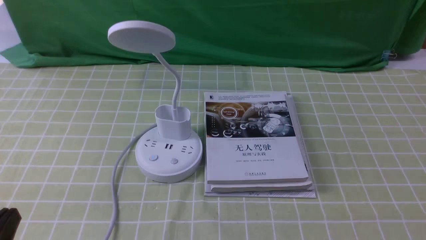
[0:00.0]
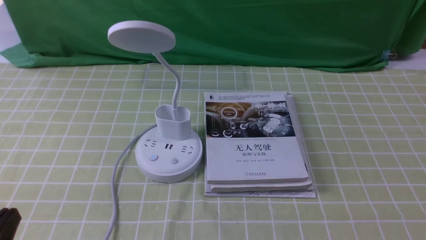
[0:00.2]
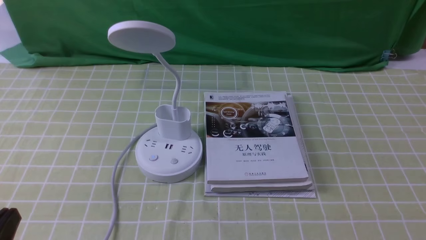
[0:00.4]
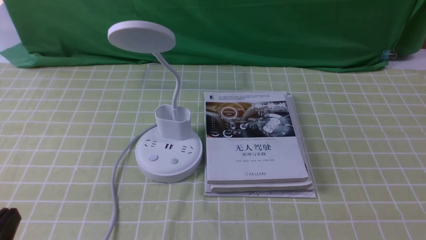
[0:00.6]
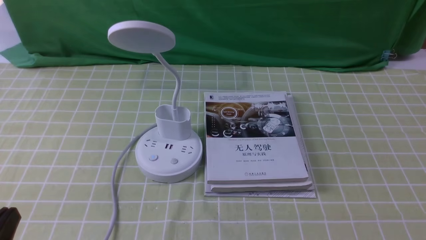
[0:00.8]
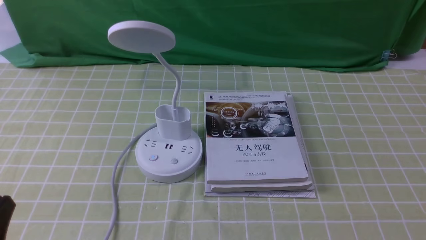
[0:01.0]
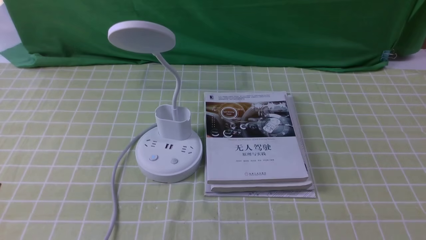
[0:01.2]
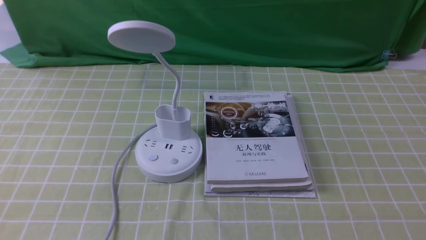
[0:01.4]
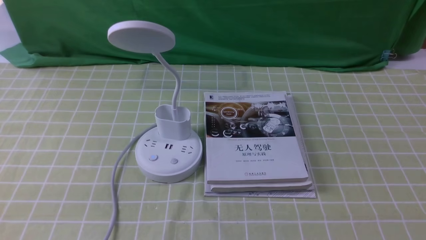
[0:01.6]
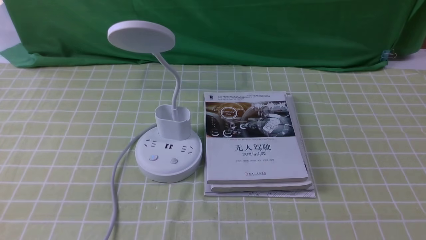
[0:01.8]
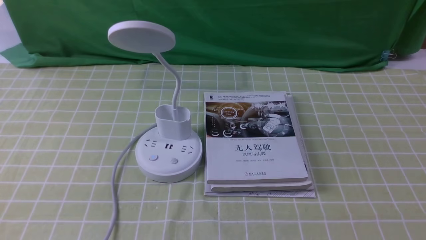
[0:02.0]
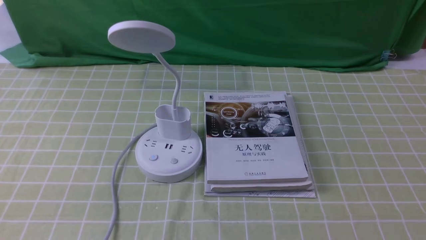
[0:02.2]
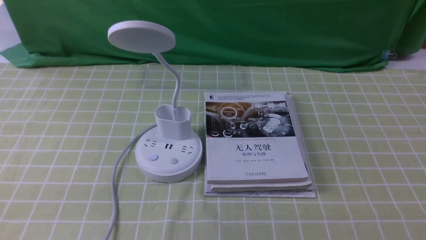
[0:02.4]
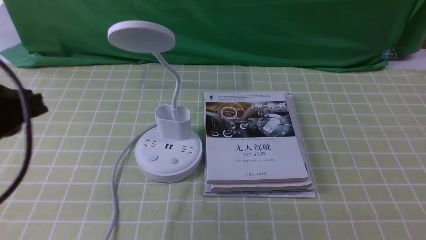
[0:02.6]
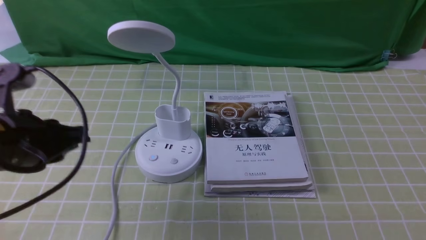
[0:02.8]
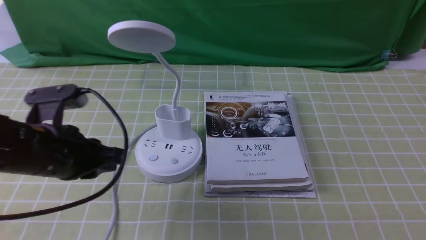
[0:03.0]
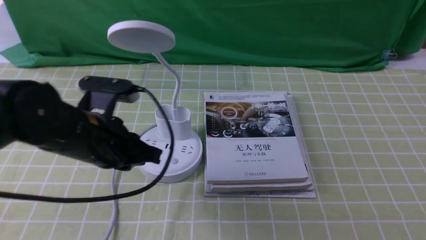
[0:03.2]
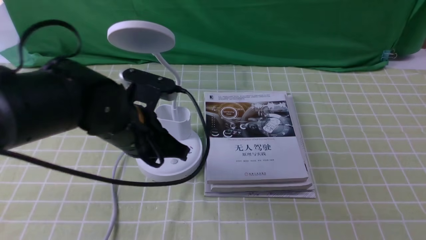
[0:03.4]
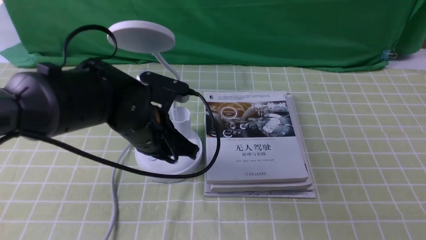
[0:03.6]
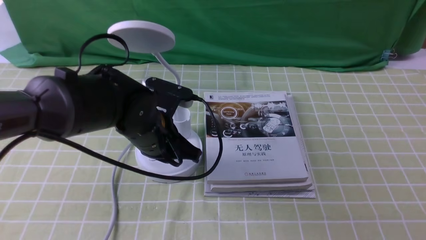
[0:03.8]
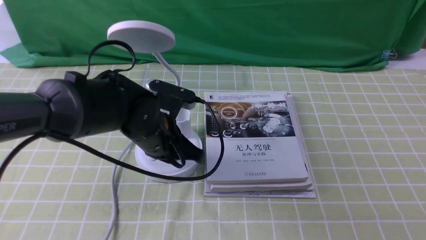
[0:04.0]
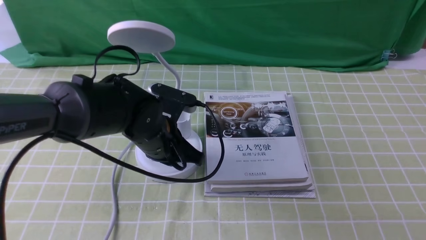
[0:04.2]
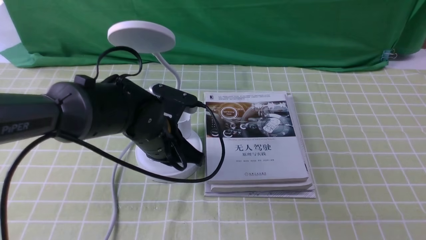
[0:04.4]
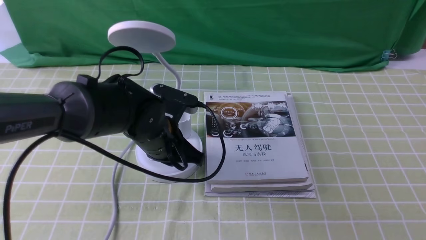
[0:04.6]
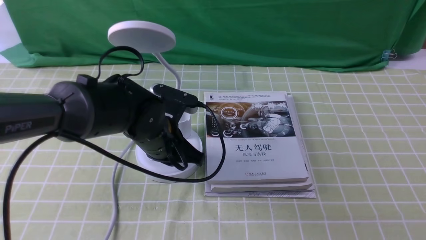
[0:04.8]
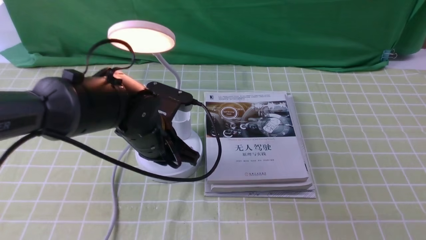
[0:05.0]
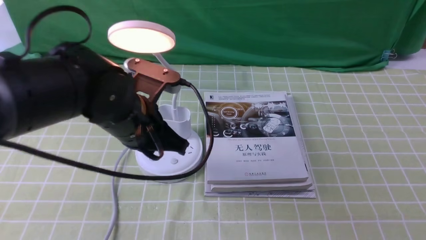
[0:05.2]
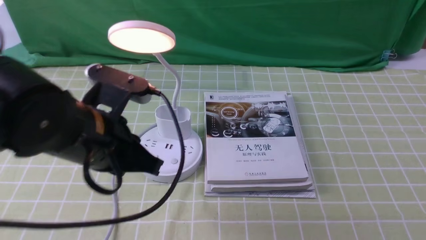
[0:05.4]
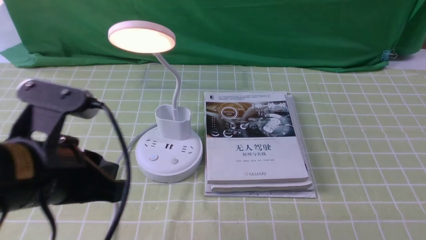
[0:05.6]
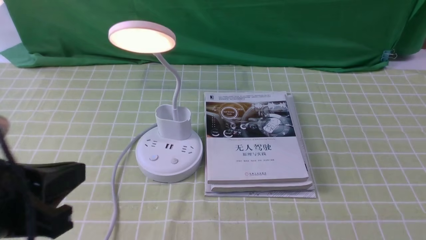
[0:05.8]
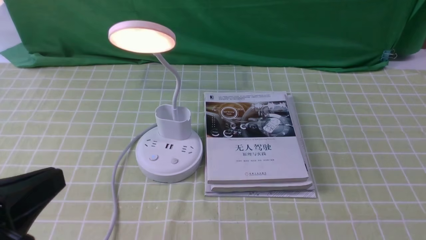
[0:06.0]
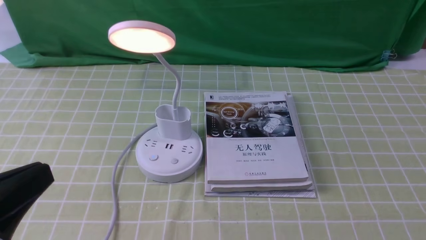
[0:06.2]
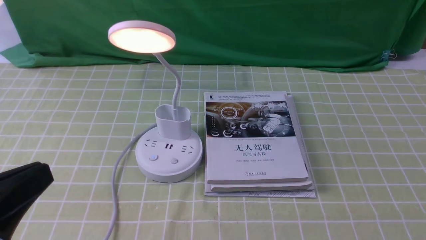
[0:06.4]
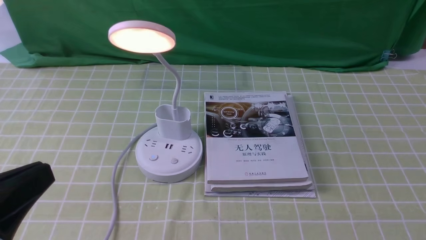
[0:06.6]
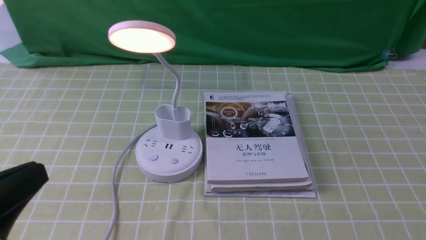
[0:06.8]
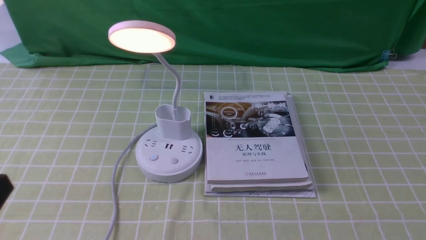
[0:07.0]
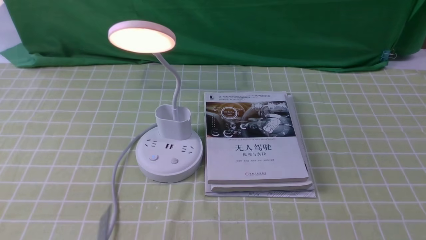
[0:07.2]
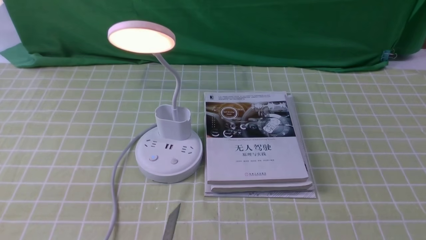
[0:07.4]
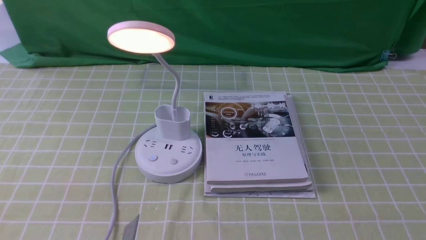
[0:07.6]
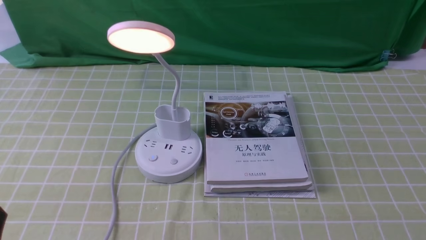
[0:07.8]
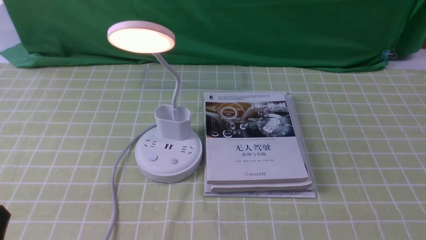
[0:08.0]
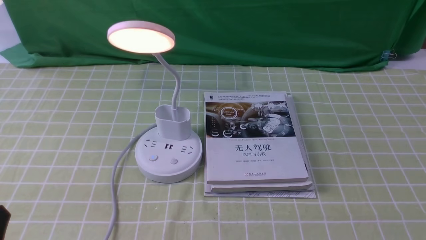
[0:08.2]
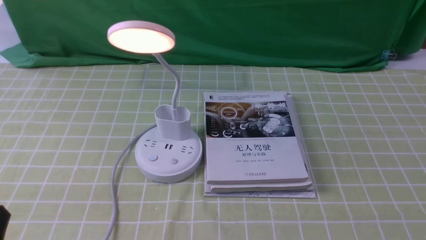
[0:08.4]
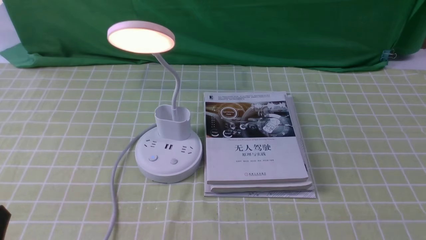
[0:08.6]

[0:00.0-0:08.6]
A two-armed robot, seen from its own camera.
Step, 0:00.0 to 0:05.2: use the left arm to press the button switch on the lamp holder.
0:01.4 to 0:02.8: The left gripper heads forward and upward, covering approximately 15 cm.
0:02.8 to 0:04.4: The left gripper travels to the right, forward and downward by about 20 cm.
0:04.4 to 0:05.8: The left gripper goes roughly 25 cm backward, upward and to the left.
0:05.8 to 0:07.2: The left gripper shifts some 10 cm backward, to the left and downward.
0:07.2 to 0:08.6: The left gripper moves downward, approximately 5 cm.

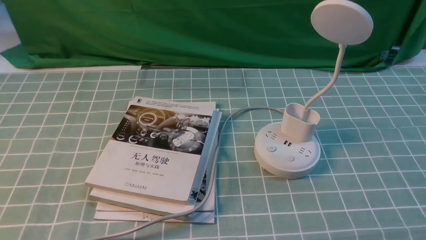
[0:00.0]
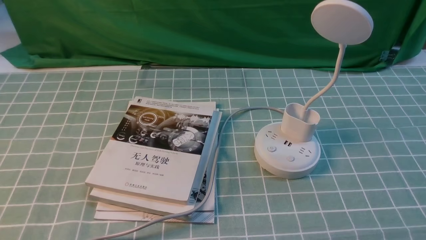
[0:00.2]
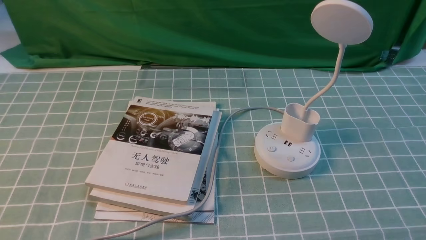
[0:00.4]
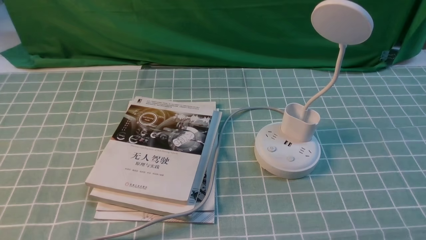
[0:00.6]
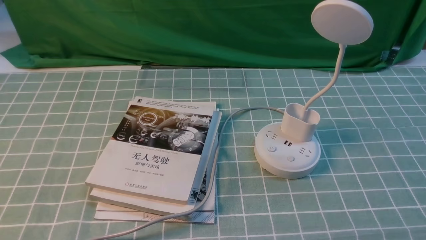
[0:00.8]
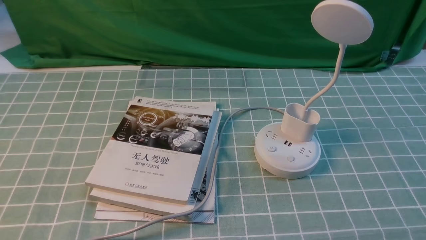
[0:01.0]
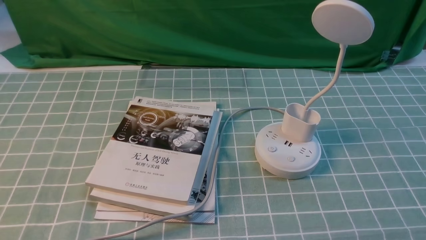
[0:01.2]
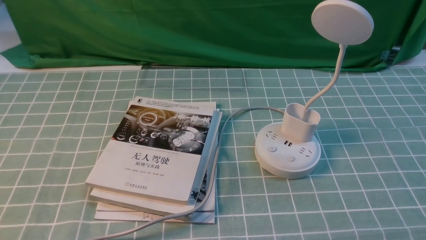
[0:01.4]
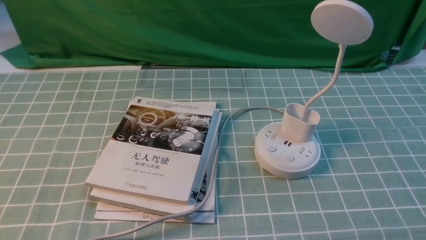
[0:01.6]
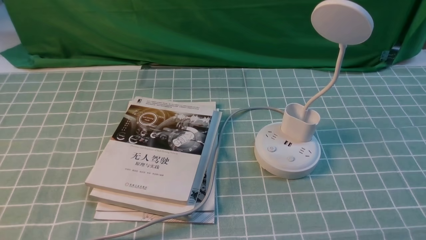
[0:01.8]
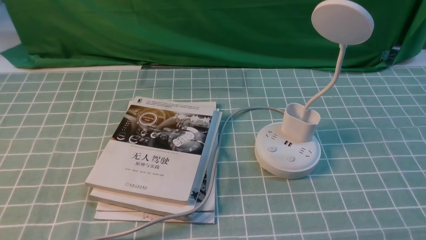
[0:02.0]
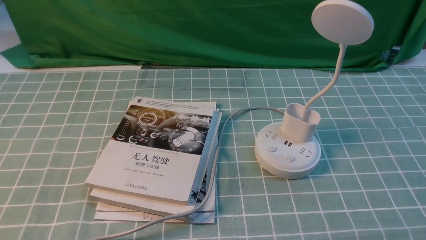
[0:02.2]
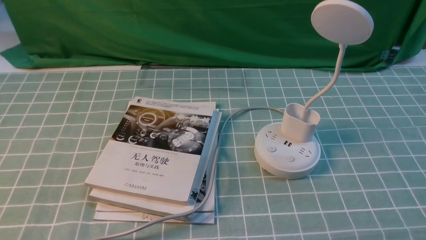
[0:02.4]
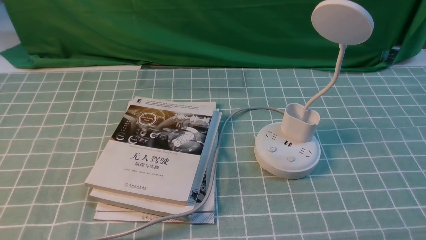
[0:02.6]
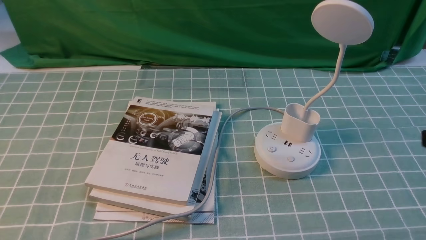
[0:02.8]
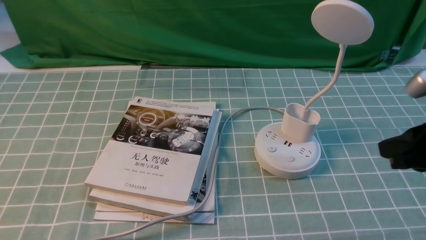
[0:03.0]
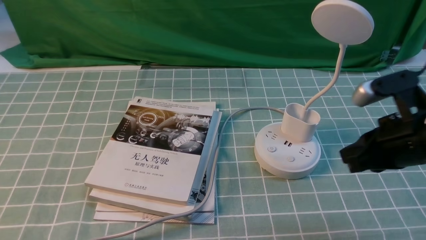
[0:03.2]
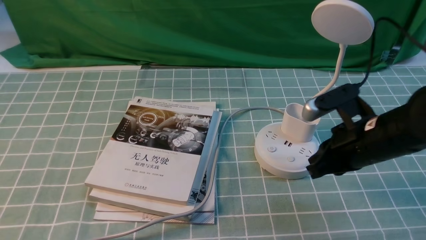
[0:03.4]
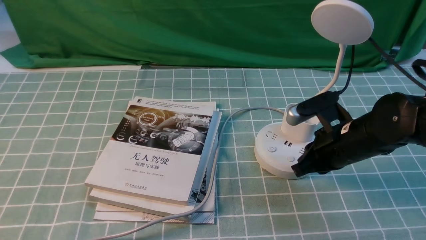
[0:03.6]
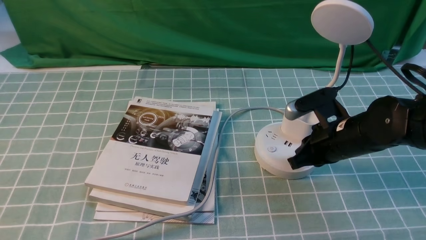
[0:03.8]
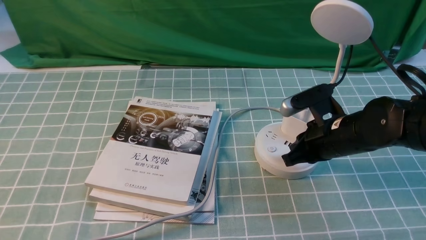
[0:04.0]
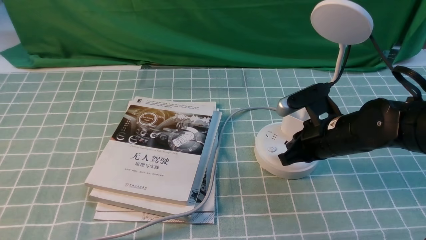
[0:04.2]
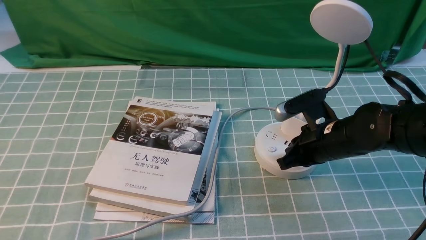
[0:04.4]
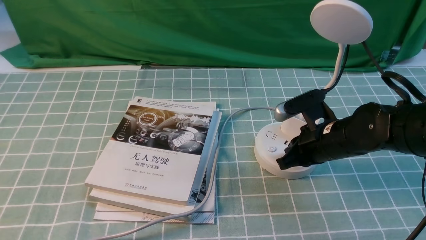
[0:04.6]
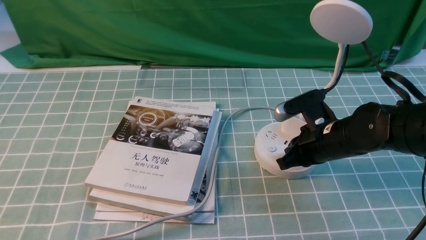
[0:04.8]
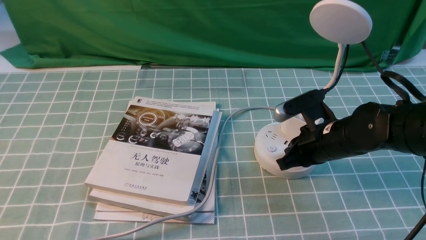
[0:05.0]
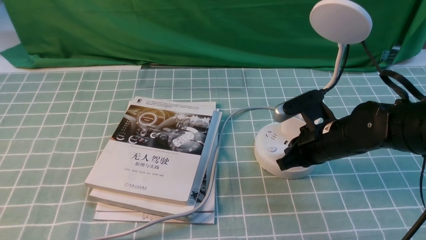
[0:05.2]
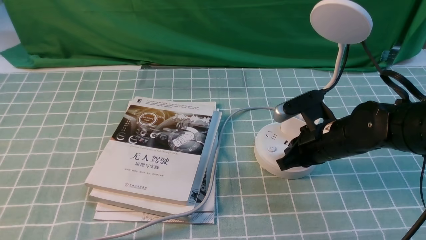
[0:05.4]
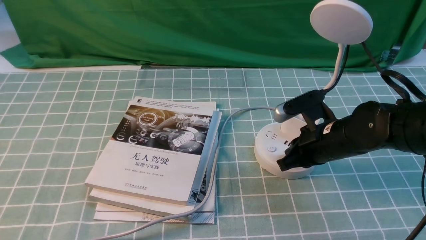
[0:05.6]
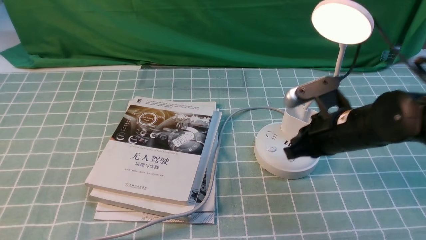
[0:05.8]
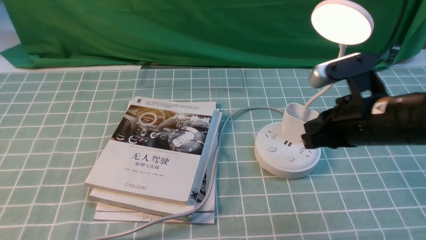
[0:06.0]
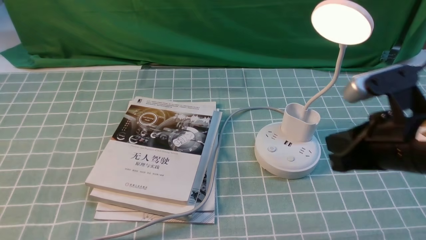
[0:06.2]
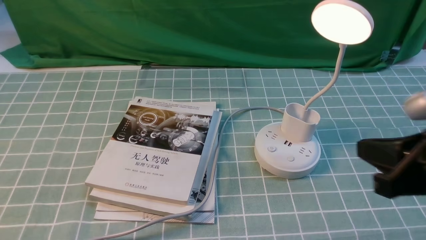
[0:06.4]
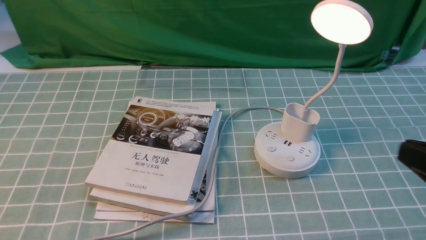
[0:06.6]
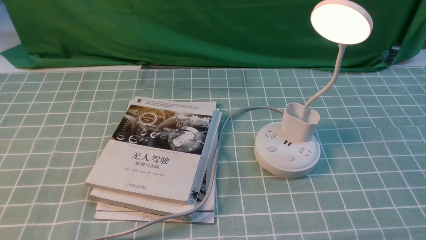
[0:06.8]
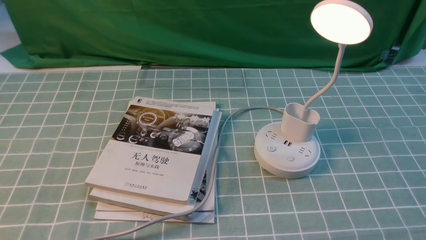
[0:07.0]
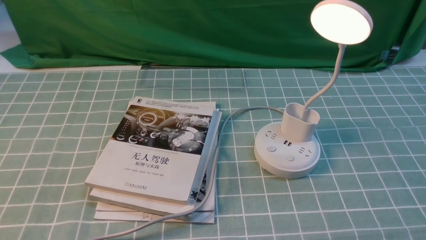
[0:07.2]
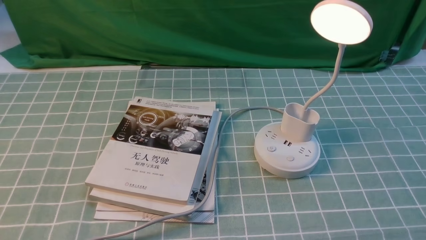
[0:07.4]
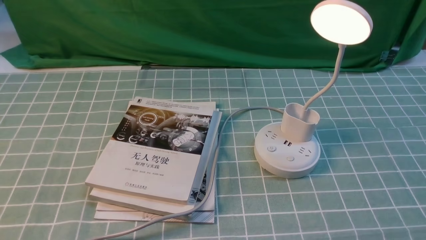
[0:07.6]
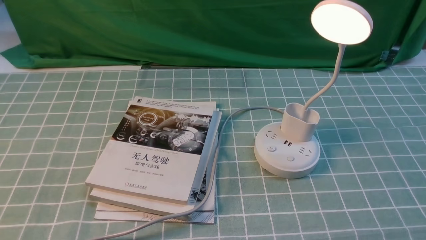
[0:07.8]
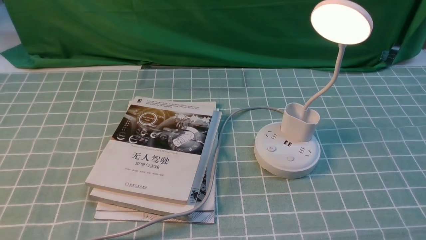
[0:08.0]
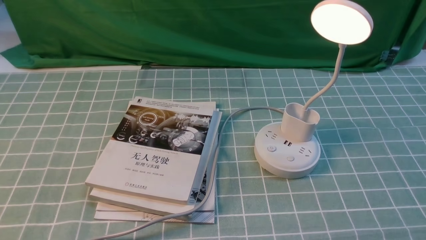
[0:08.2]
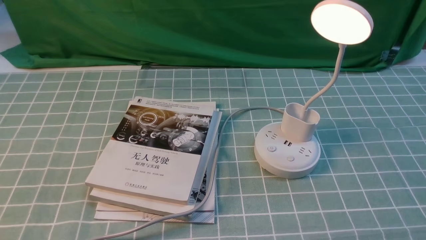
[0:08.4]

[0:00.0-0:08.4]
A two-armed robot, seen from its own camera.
Step, 0:00.0 to 0:05.8: use the right arm to press the button switch on the lamp holder.
0:02.8 to 0:04.2: The right gripper is displaced forward, downward and to the left by approximately 25 cm.
0:04.2 to 0:05.6: The grippers make only small movements.
0:05.6 to 0:07.0: The right gripper goes about 30 cm backward, upward and to the right.
